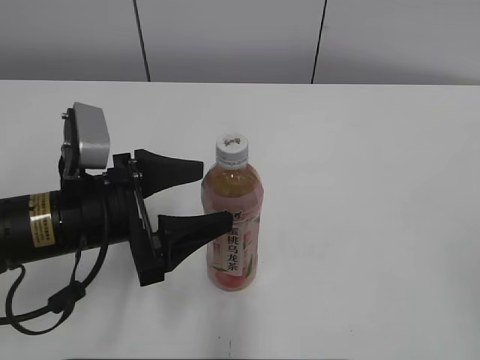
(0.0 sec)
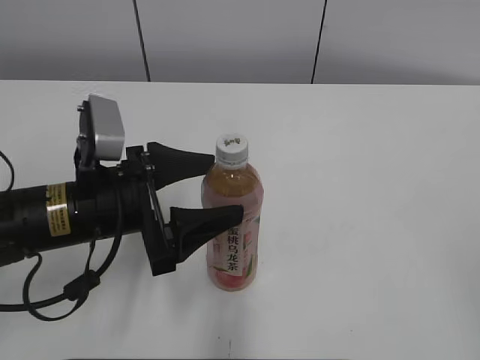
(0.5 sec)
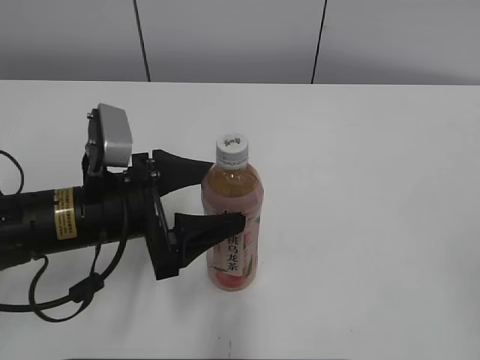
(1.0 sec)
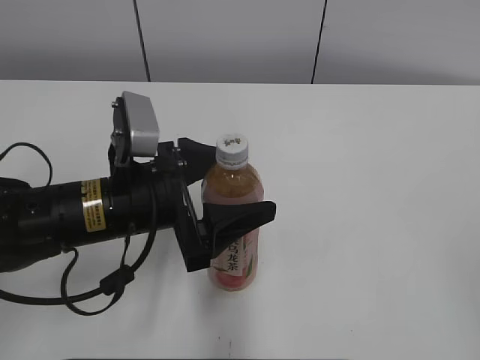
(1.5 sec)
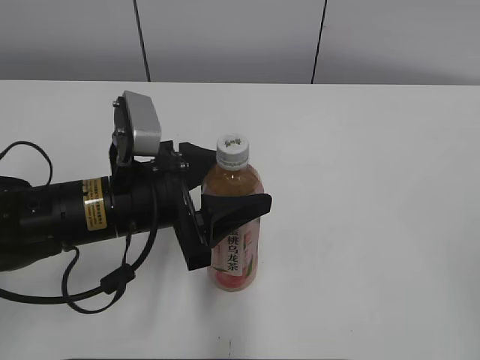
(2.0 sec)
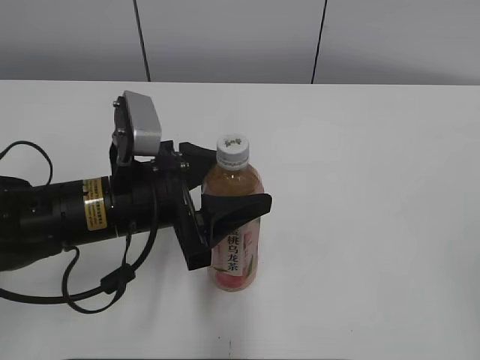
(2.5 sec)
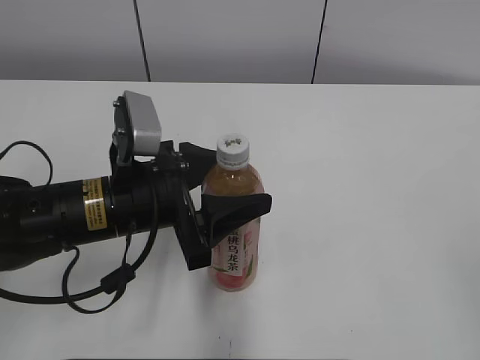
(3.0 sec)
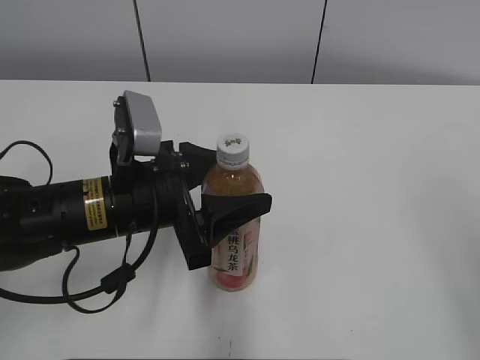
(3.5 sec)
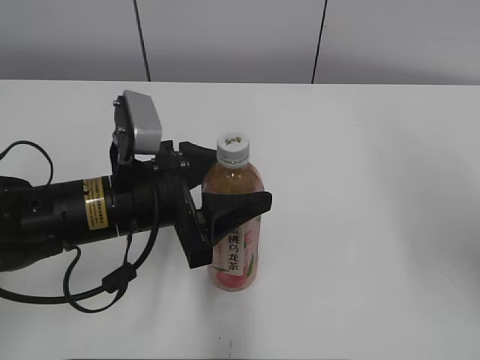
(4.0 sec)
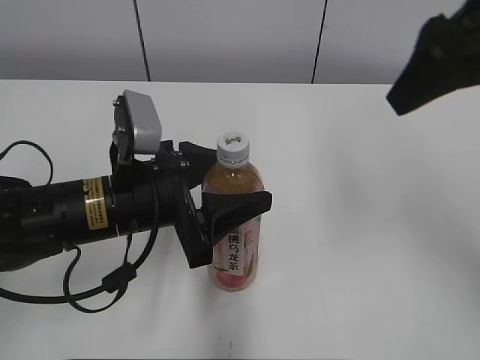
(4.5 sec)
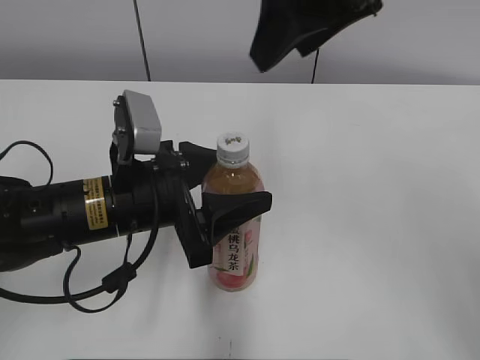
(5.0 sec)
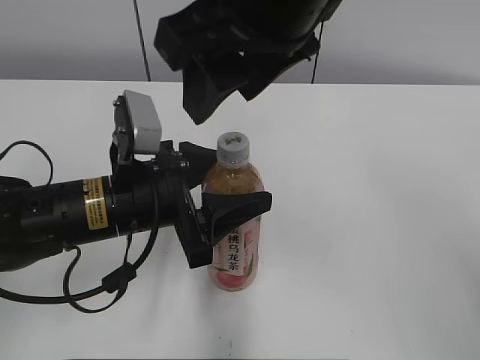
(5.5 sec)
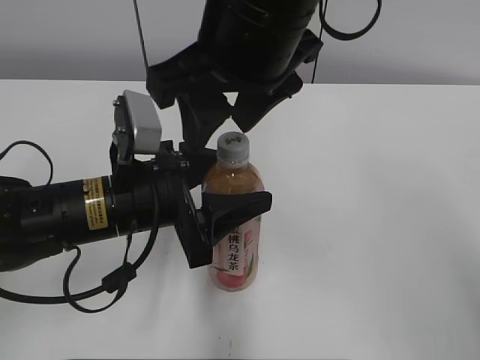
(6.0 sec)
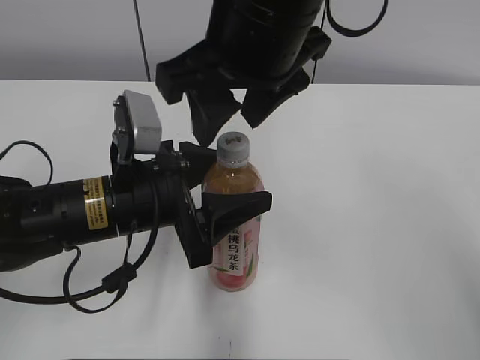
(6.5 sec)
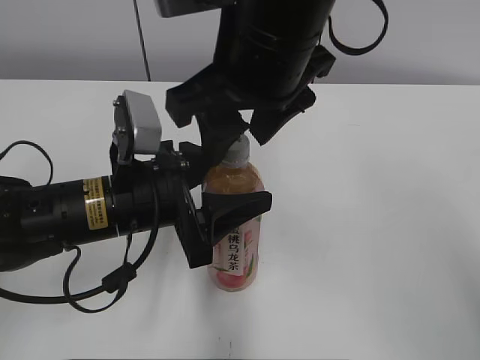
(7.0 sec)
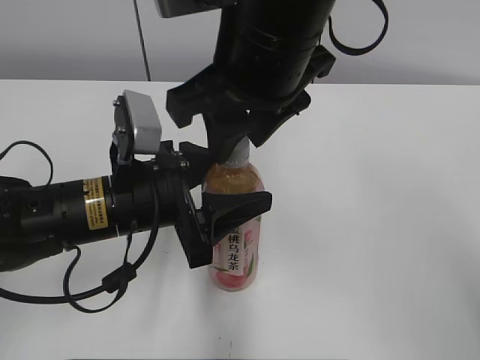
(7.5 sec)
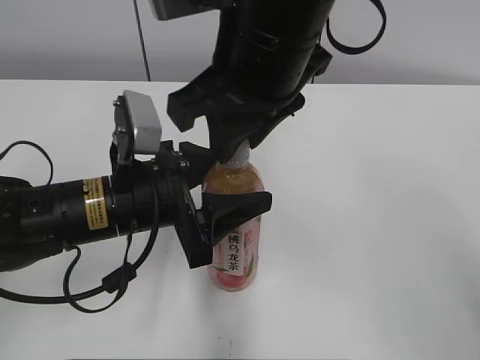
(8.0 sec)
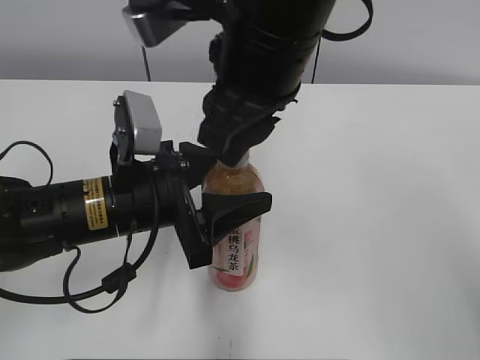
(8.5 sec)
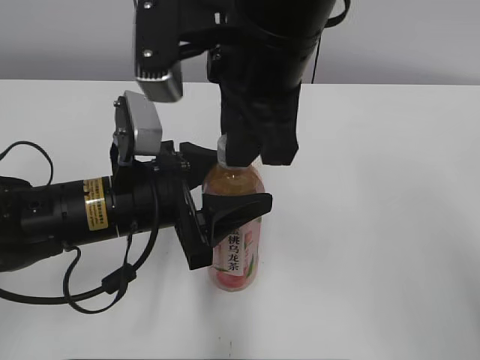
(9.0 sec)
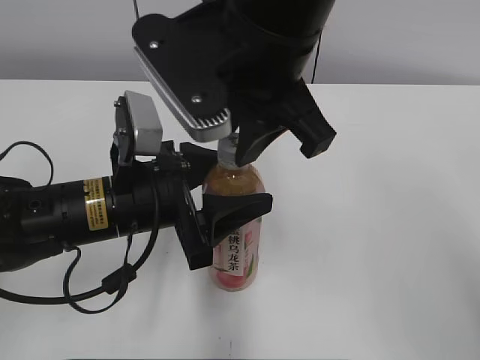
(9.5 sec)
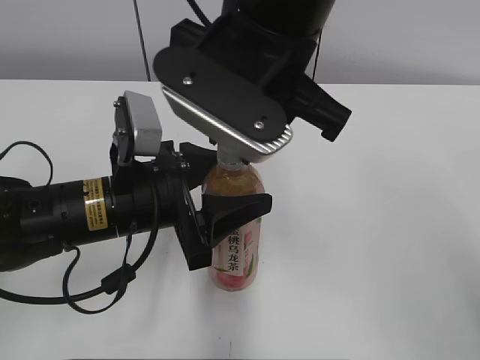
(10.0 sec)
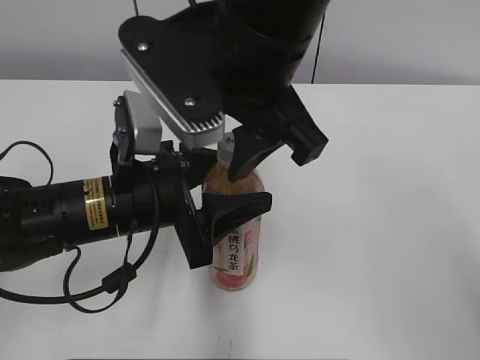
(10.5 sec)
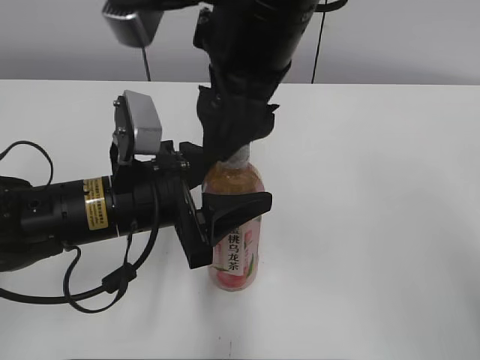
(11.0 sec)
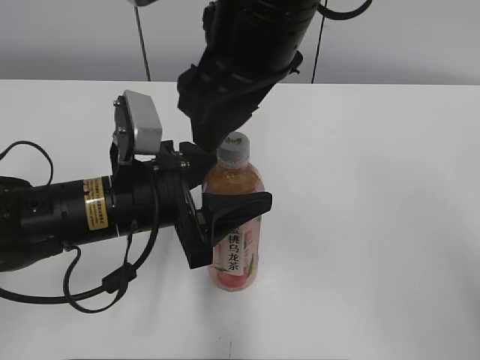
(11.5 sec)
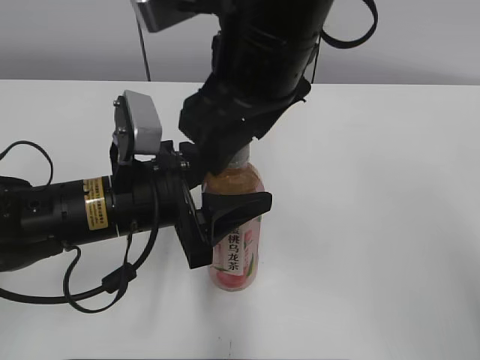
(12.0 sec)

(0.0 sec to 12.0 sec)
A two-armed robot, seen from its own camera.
Step, 0.0 sec - 2.0 sec: Grab the Peach Oolong Tea with the left hand.
0.0 sec - 2.0 sec: The left gripper closes.
2.0 sec - 4.0 sec: The right gripper shifts approximately 15 cm forward.
4.0 sec - 6.0 sec: The right gripper heads to the left, covering some 25 cm.
6.0 sec - 8.0 sec: The right gripper closes its fingers.
10.0 sec - 12.0 sec: The right gripper opens its fingers.

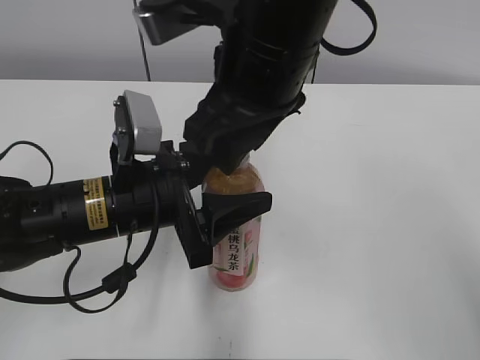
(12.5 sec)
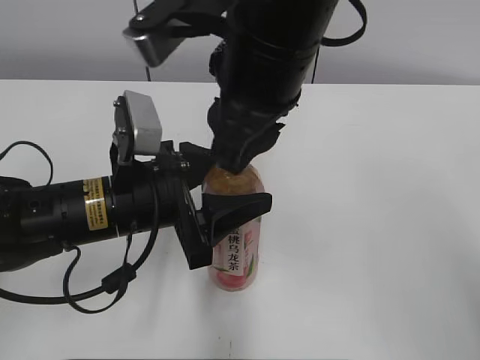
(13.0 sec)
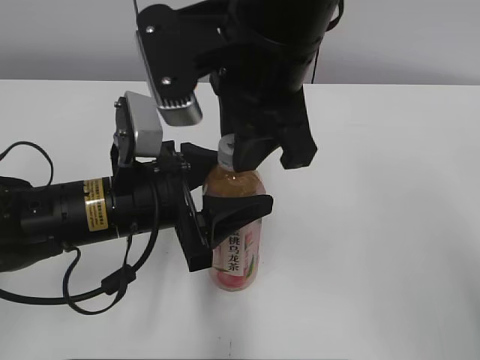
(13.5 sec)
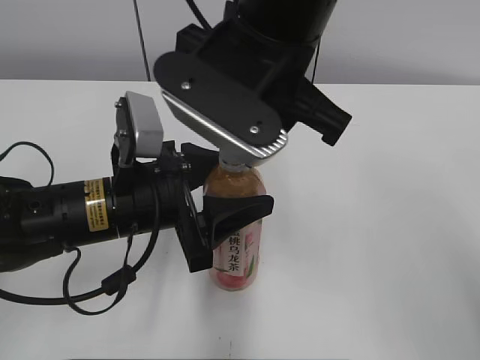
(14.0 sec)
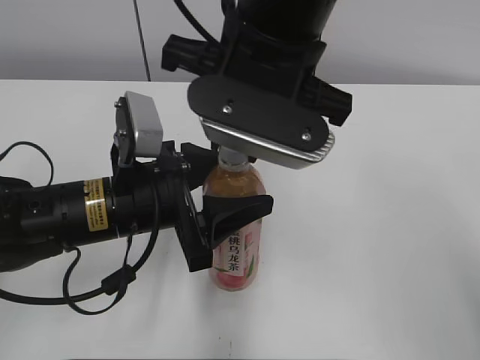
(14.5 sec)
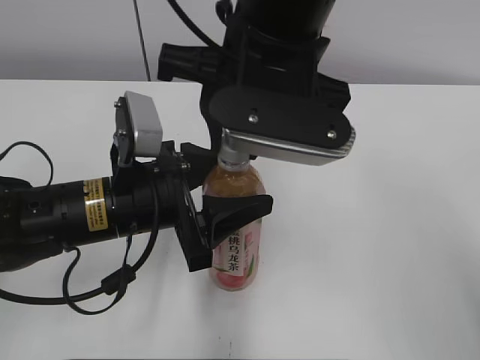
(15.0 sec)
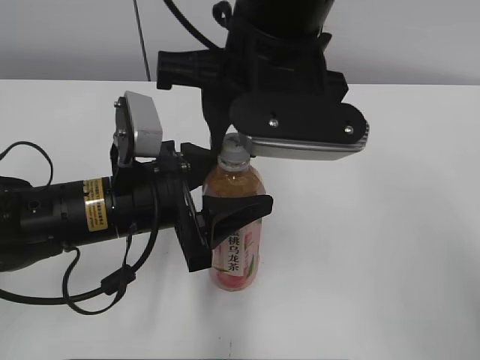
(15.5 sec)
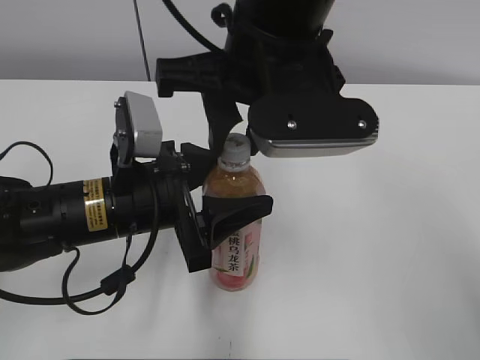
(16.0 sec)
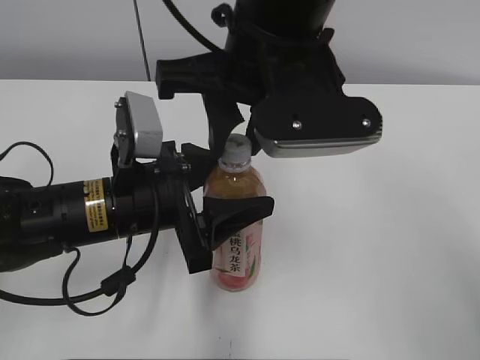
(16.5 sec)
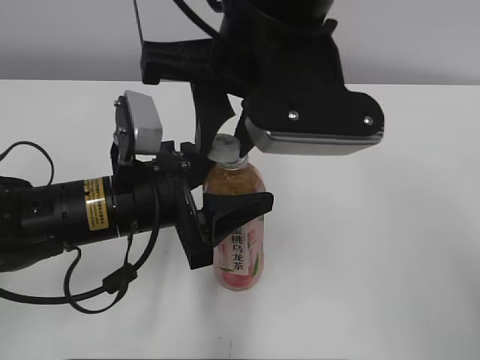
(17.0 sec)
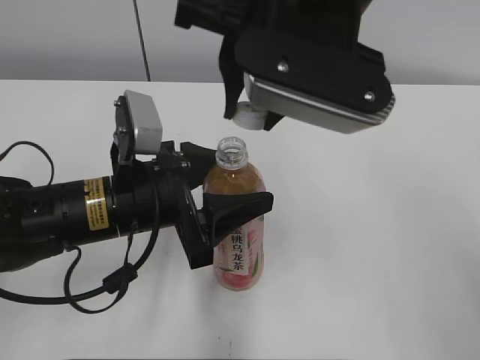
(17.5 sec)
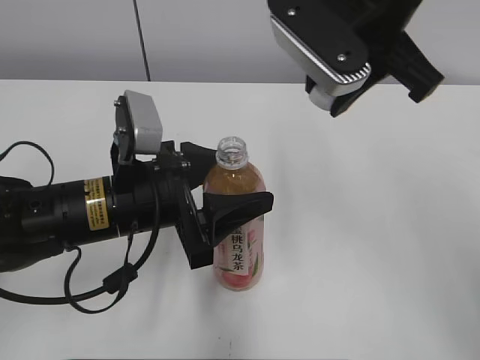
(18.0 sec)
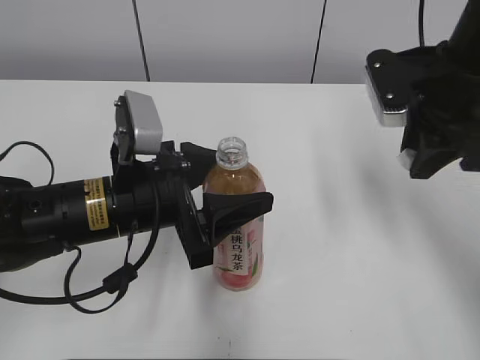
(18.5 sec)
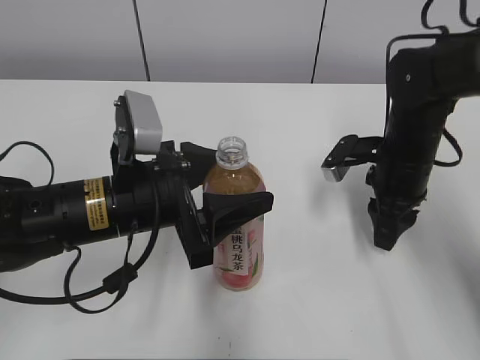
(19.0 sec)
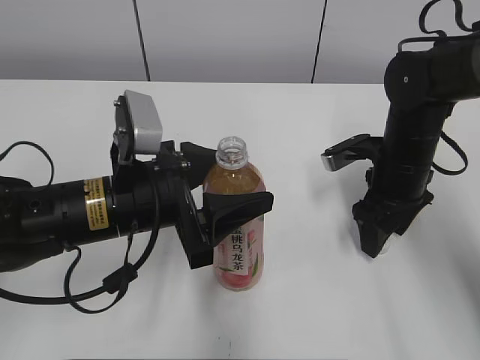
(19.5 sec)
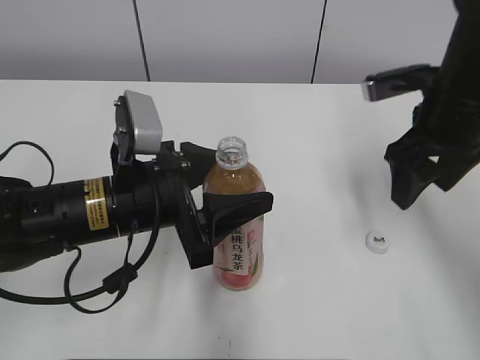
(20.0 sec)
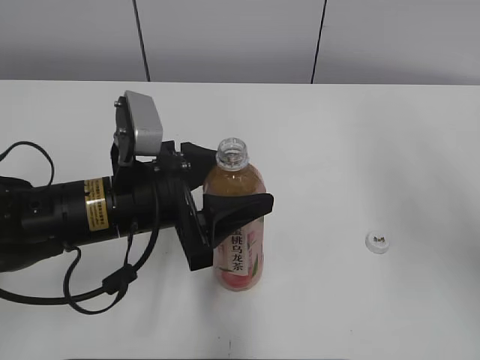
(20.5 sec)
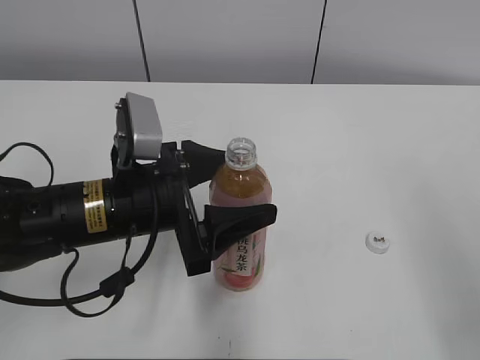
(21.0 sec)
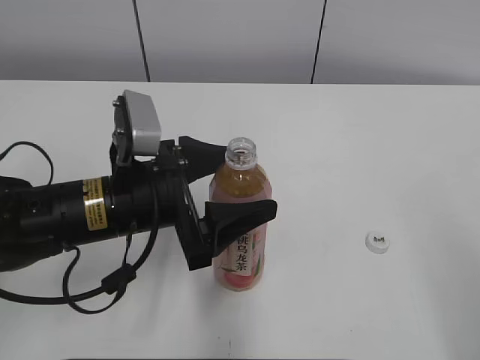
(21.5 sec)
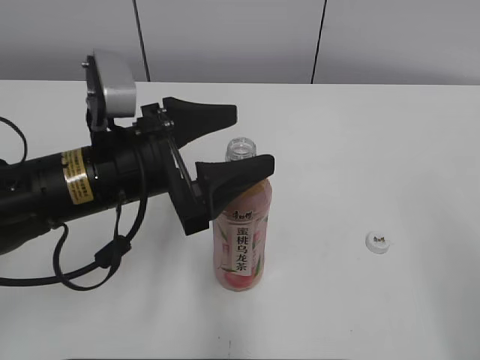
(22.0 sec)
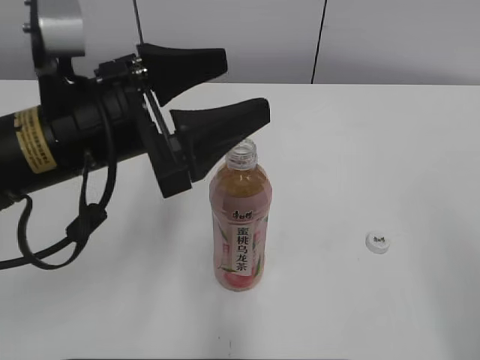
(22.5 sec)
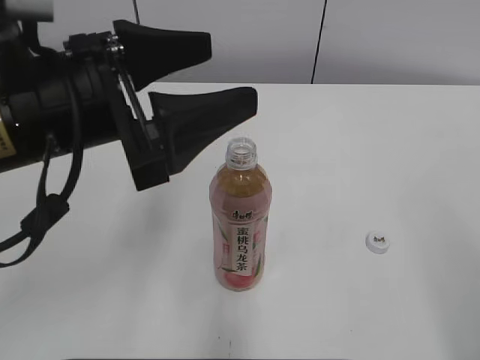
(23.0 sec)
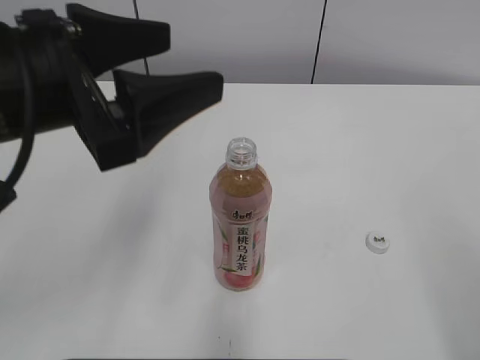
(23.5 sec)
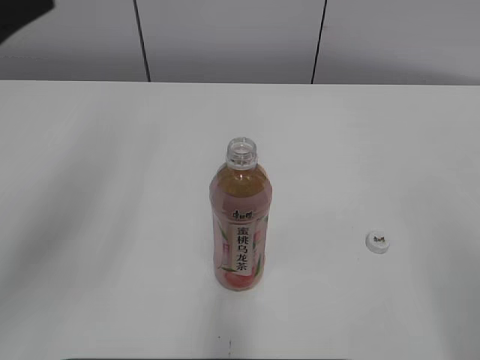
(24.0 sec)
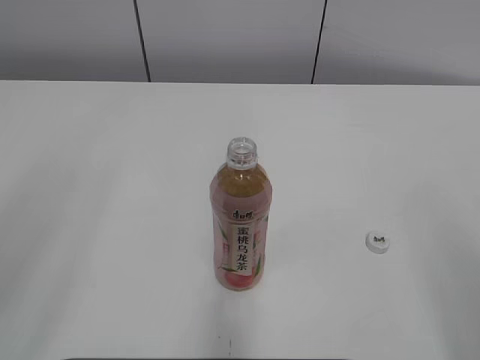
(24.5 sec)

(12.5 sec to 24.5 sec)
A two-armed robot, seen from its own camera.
Step, 12.5 sec - 17.0 sec: Secure the Peach Oolong Tea with the left hand.
Step, 17.5 sec - 19.5 sec: Place the bottle cap on the right.
16.5 sec - 18.5 sec: The right gripper heads to the right, covering some 20 cm.
18.5 sec - 20.5 sec: The right gripper shifts approximately 15 cm backward and upward, and opens.
20.5 sec - 22.5 sec: The right gripper goes about 20 cm backward and downward. The left gripper shifts some 10 cm upward, and opens its fingers.
22.5 sec - 24.5 sec: The left gripper travels backward, to the left and upward by about 25 cm, and closes.

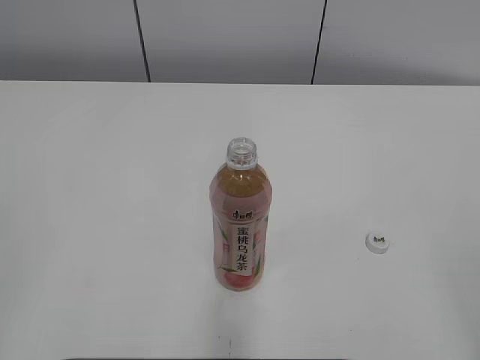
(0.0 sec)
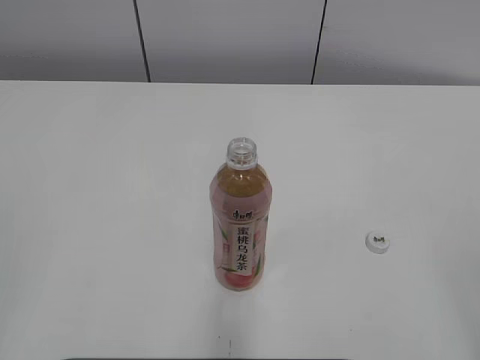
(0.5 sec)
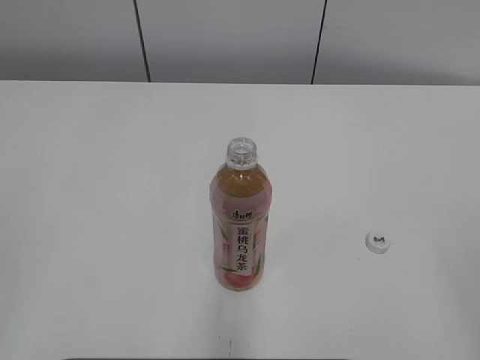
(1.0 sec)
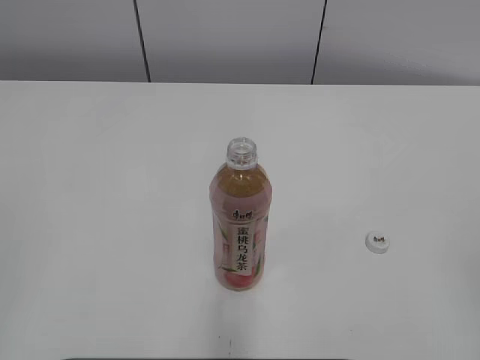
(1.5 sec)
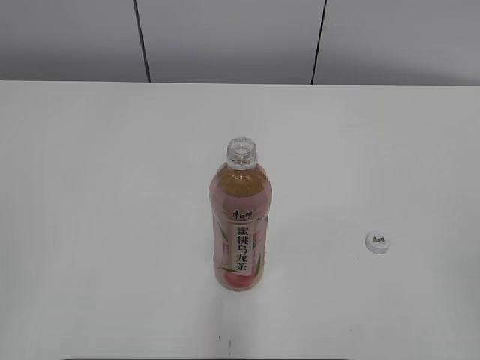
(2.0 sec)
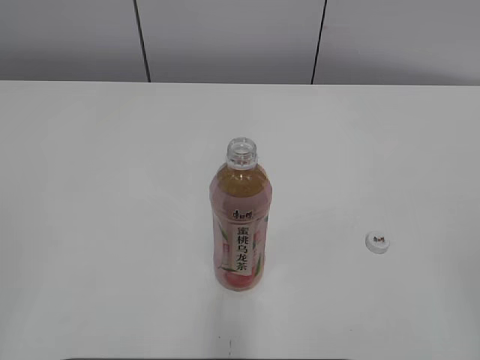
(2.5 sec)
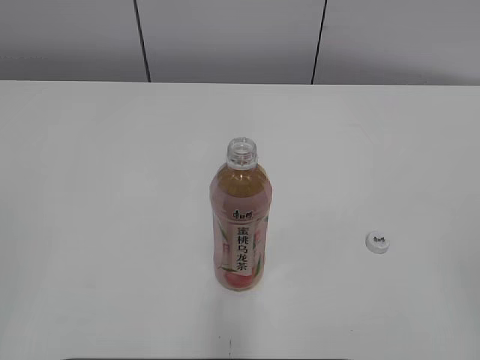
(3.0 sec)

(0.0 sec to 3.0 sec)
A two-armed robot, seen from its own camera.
1.5 sec - 3.0 sec: Neither gripper changes place.
